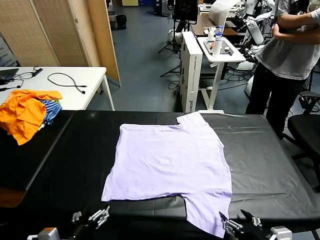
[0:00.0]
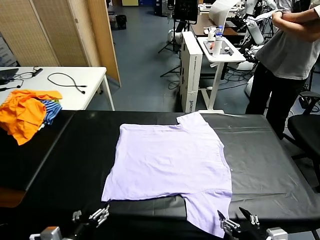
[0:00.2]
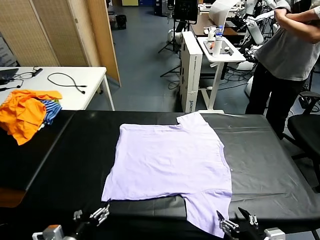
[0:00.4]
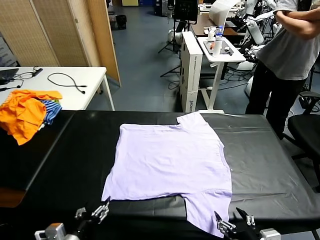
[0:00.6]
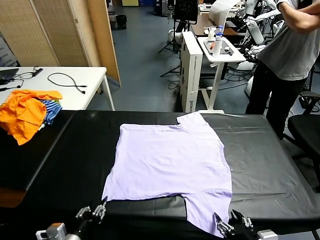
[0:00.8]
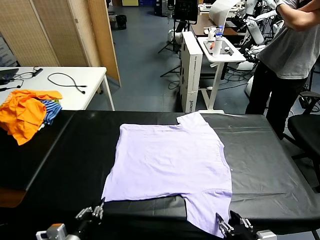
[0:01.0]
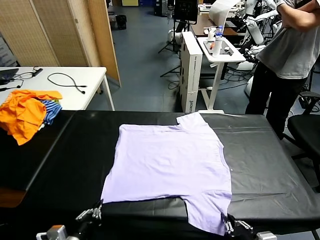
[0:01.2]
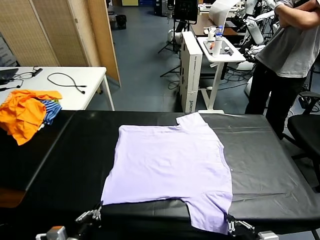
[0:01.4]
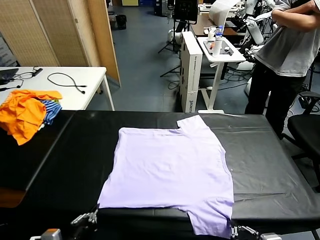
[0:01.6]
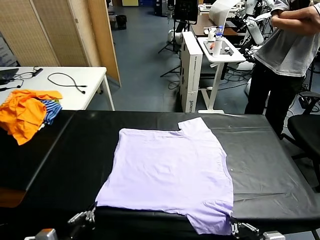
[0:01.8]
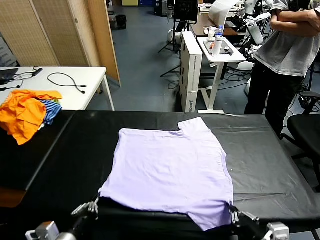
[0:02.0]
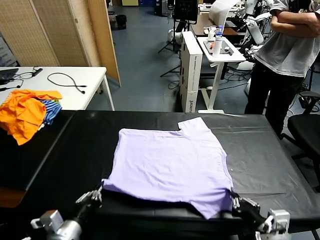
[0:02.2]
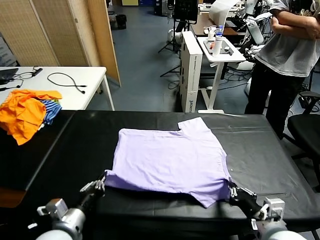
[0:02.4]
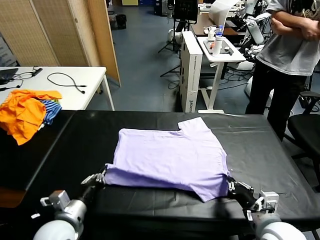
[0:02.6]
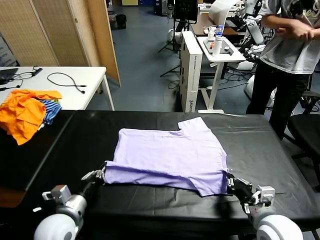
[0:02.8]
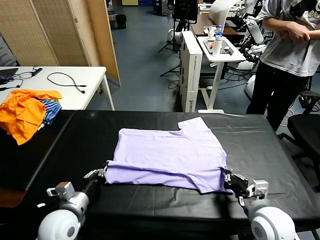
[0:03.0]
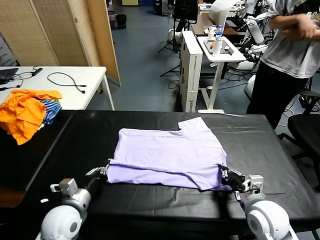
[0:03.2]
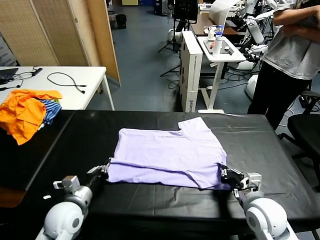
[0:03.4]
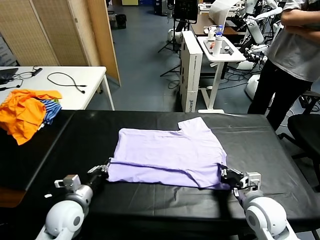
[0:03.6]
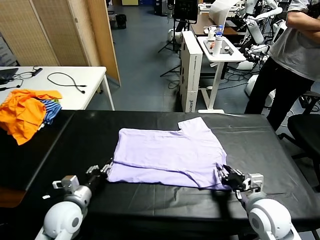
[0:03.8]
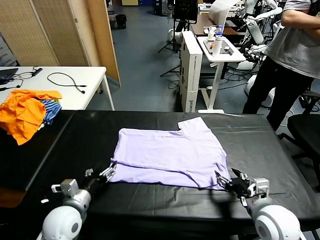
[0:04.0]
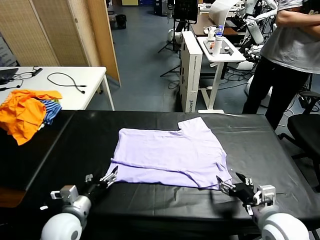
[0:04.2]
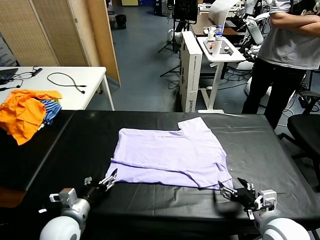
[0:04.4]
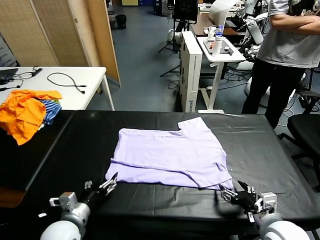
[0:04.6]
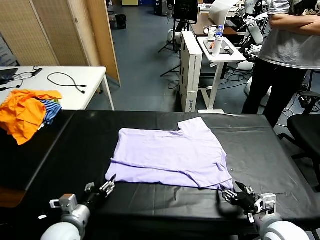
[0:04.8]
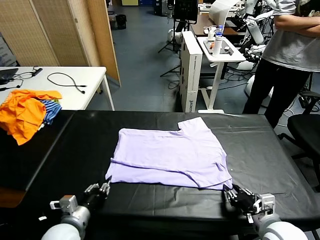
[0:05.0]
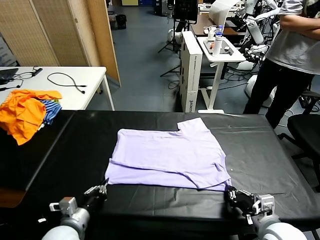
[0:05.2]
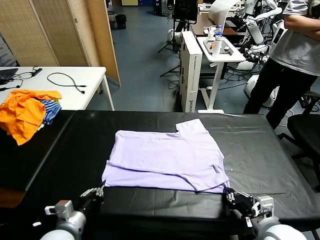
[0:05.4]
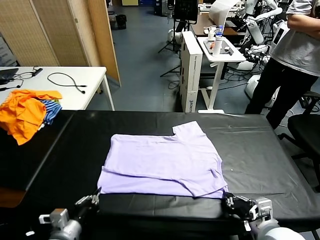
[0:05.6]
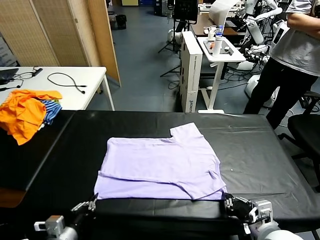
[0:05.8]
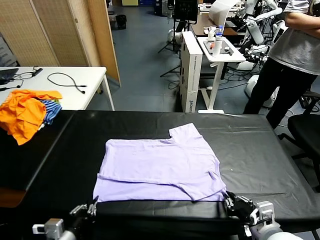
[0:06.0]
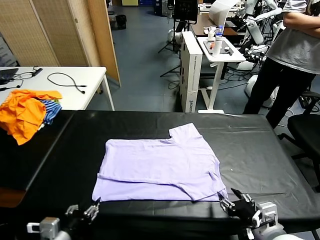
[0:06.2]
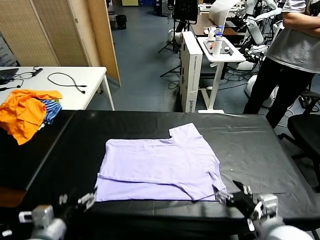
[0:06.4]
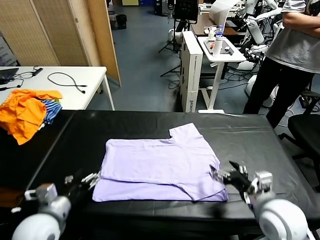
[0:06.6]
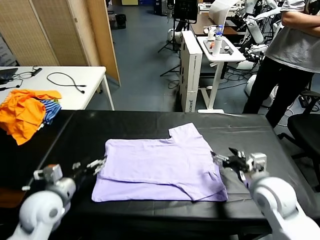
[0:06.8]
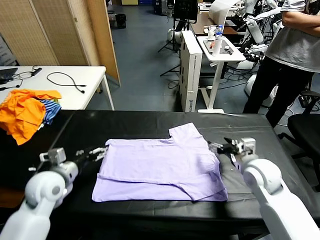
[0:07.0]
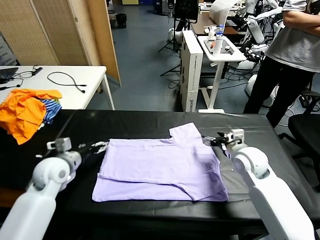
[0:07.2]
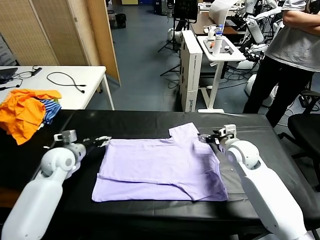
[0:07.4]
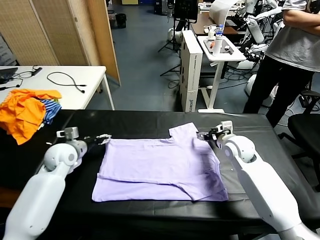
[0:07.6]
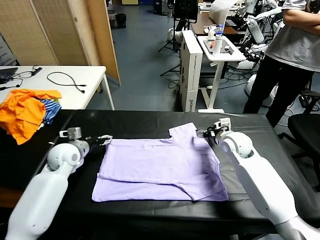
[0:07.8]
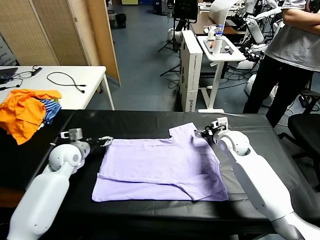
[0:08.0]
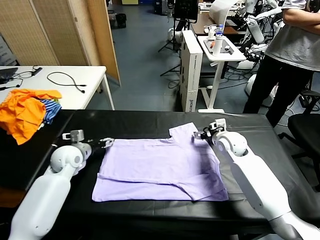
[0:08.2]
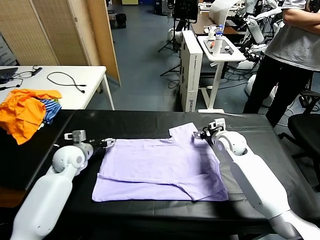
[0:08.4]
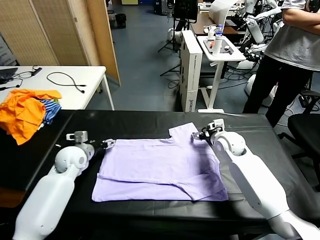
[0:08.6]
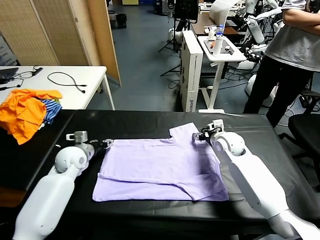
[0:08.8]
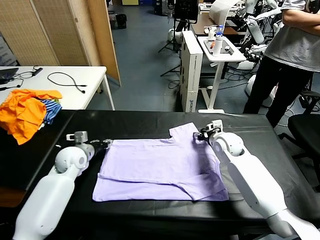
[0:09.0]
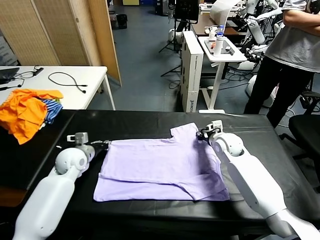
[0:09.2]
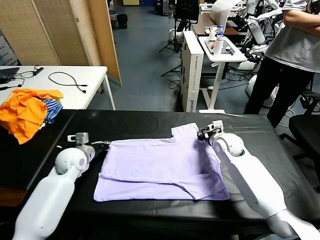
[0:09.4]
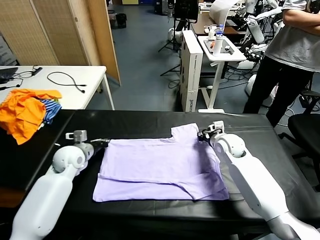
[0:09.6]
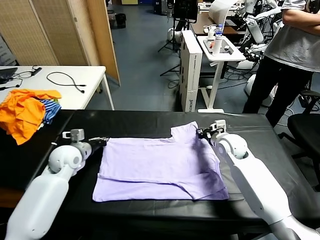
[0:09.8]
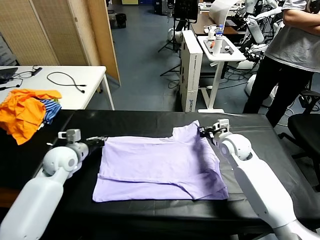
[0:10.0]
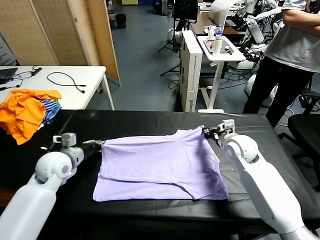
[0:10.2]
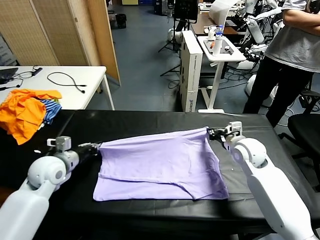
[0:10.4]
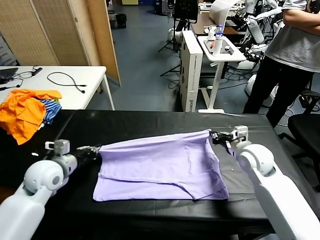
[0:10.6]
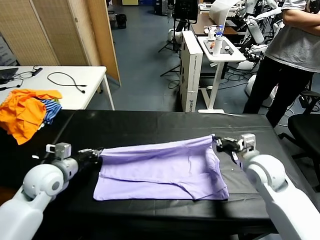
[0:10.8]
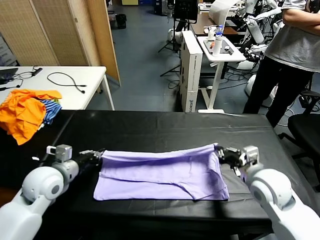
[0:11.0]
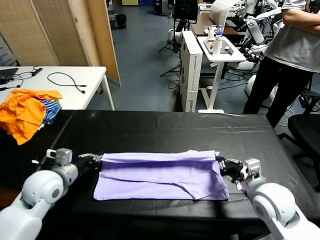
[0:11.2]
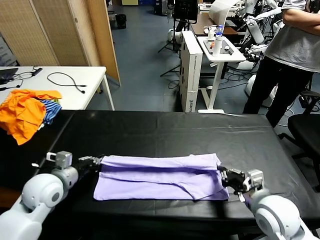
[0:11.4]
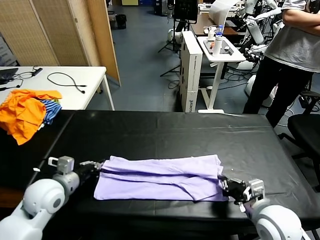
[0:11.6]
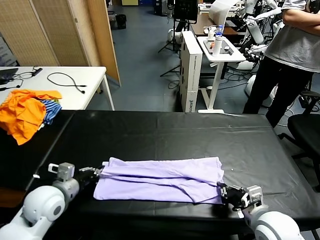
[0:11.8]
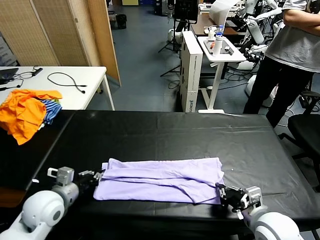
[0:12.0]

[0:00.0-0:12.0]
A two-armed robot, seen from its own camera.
Task of the whole recording: fold and organize the clothes.
Step, 0:00.0 to 0:01.4: use both grippers simultaneously to clamp the lower edge of the clothing fabric.
Step, 0:01.6 to 0:04.0: use both grippers to drag the lower edge of the fabric forward and fold it over the upper edge.
Step, 0:04.2 to 0:06.2: Drag the clothes downward with both gripper.
Step, 0:06.4 to 0:09.4: use both grippers simultaneously to clamp the upper edge of the clothing fabric.
0:01.6 to 0:03.0: Both grippers travel together forward, roughly 15 cm.
0:03.0 to 0:04.4: The left gripper opens, while the right gripper moves backward, some 5 cm, and opens.
0:04.4 to 0:06.0: The right gripper ends up about 5 cm from where it was, and closes and opens again. Meanwhile the left gripper shifts approximately 10 cm backward, and closes up.
0:06.0 to 0:07.6: The two grippers go about 30 cm forward. The left gripper opens up.
0:07.6 to 0:09.0: The right gripper closes up. Meanwhile the left gripper closes.
0:09.0 to 0:10.4: Both grippers travel together backward and upward, about 10 cm.
0:10.4 to 0:12.0: The left gripper goes some 10 cm backward, and opens its fingers. The right gripper goes roughly 20 cm backward.

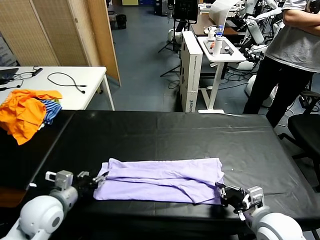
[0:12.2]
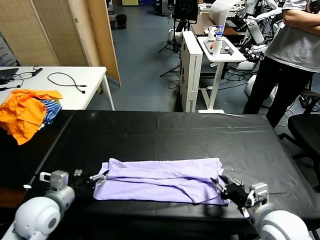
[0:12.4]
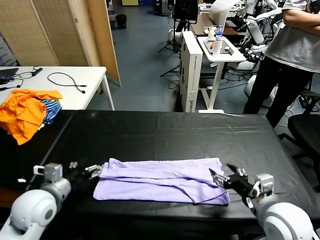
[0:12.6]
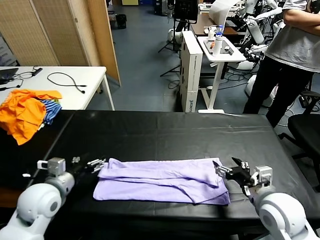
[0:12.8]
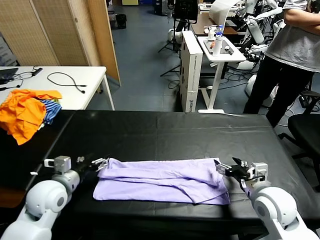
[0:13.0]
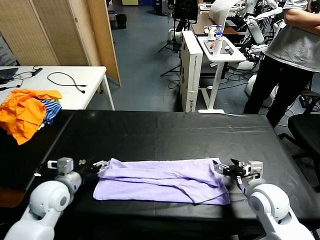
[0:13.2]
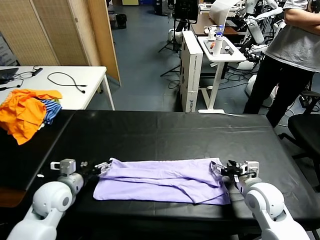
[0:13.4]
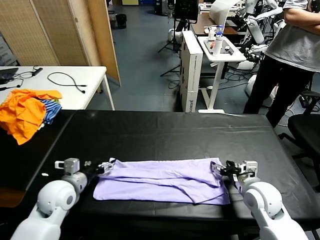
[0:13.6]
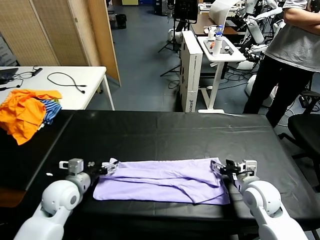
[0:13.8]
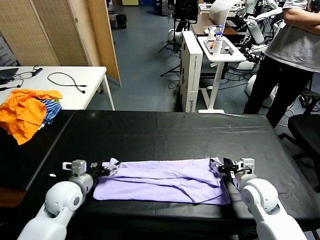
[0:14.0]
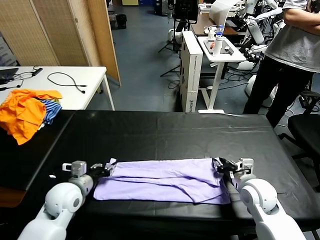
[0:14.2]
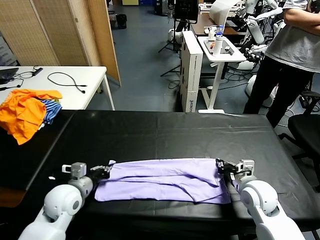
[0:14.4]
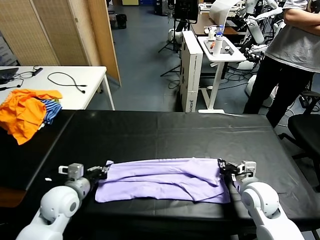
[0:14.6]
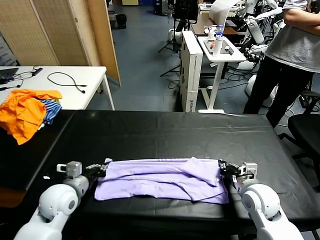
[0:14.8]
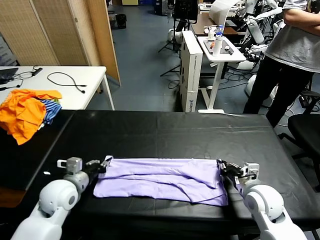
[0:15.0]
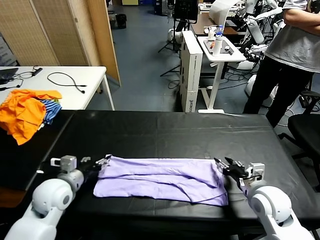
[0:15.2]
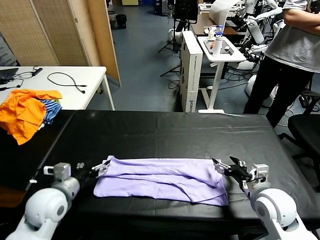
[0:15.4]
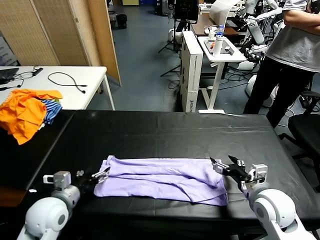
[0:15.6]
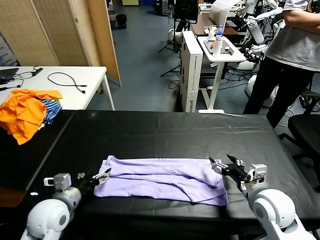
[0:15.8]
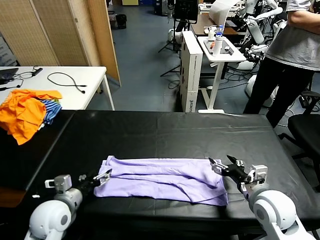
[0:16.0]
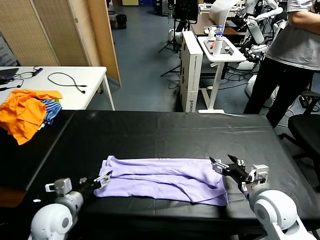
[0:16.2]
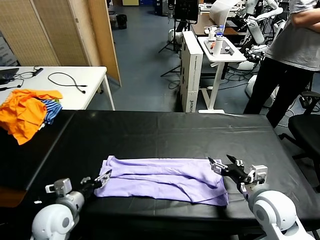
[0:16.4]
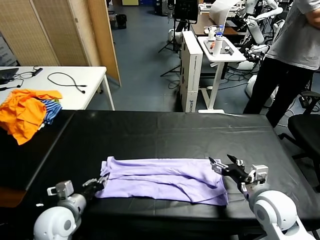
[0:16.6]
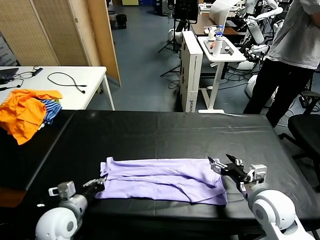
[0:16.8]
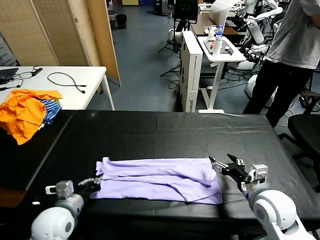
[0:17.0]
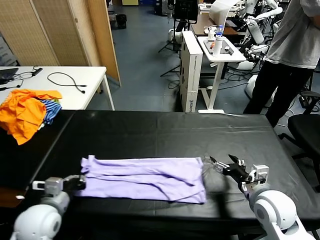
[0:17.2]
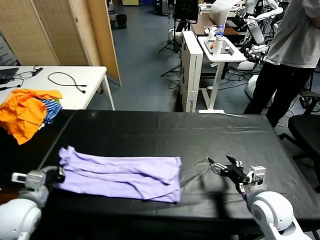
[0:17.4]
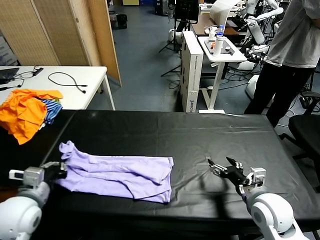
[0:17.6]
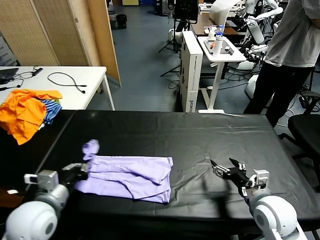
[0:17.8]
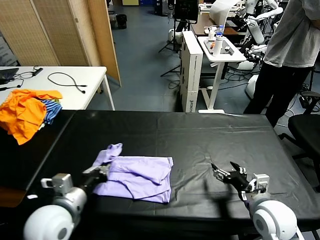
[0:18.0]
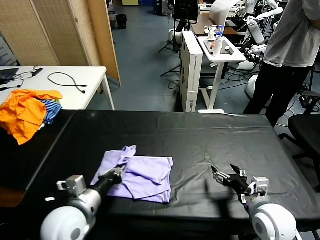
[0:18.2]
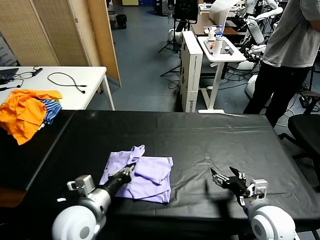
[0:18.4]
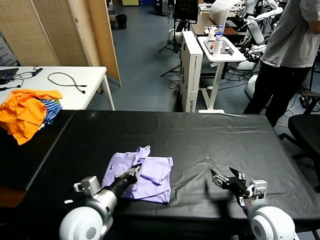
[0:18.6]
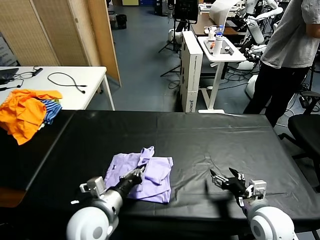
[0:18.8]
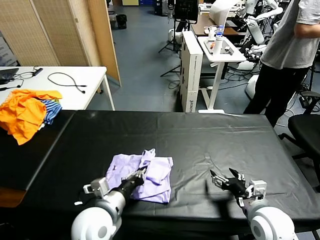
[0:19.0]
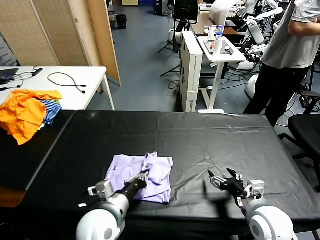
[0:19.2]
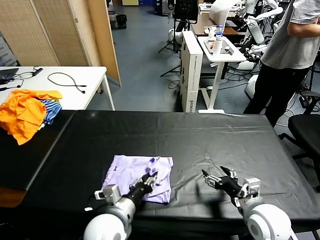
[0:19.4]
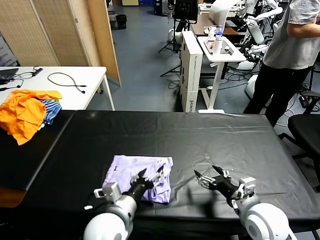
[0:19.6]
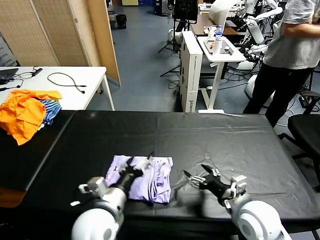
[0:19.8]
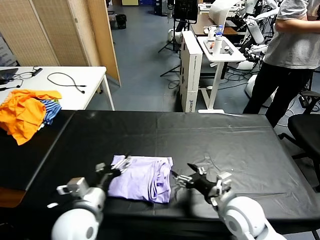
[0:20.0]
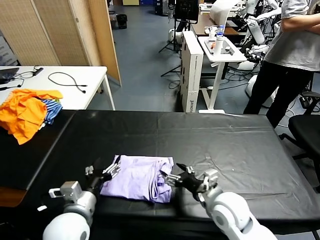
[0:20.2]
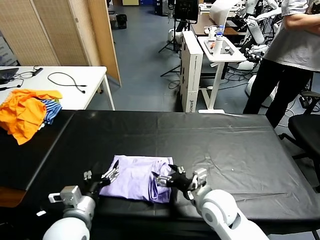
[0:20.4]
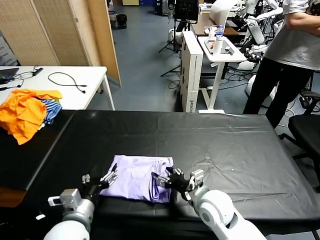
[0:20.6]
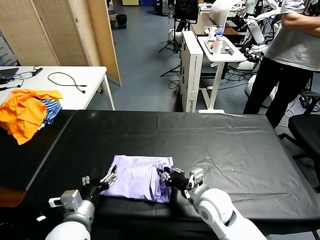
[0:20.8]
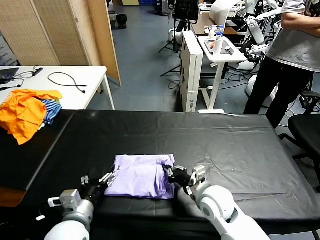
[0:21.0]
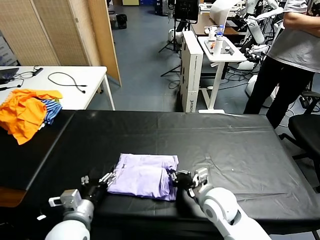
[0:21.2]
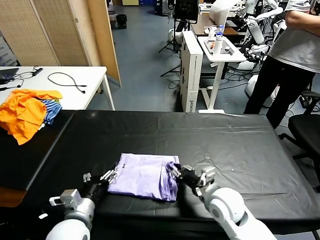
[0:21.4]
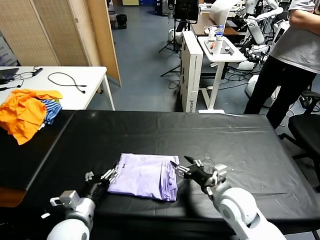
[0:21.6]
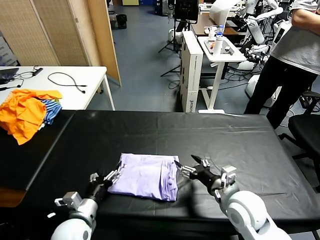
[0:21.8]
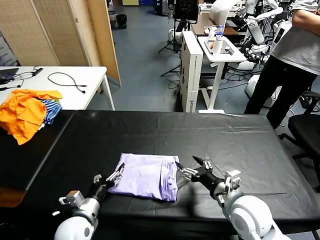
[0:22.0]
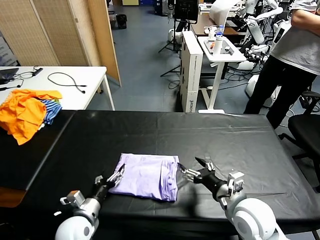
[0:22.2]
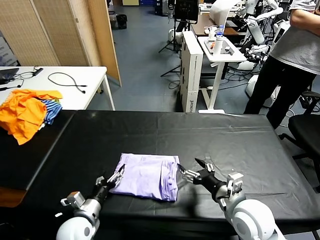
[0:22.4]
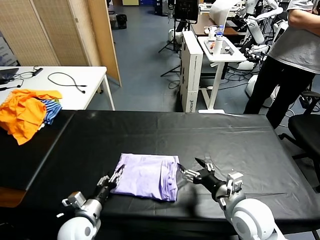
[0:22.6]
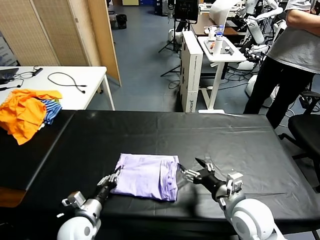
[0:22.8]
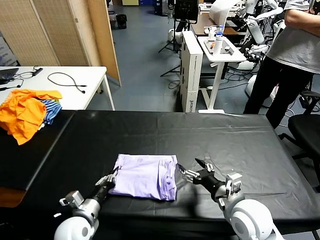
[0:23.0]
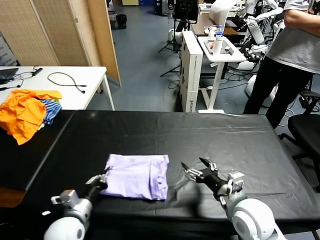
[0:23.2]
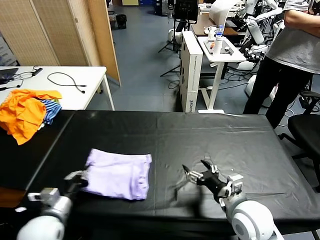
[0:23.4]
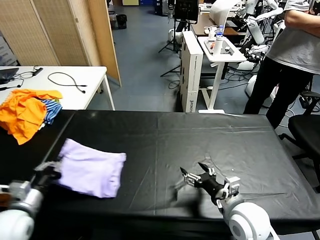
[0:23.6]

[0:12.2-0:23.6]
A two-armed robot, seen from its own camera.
Task of the whole recording: fold and organize the clothes.
Step, 0:12.2 to 0:15.4: use both grippers to drag the upper edge of the fabric backward and fold it over the lower edge.
Step, 0:15.6 to 0:16.8: use the left gripper to clamp the left edge of the fabric.
Step, 0:17.0 to 0:21.6: use the left gripper to drag the left edge of the fabric to the left and folds it over the right edge.
0:12.2 to 0:13.6: The right gripper is displaced forward and downward by about 10 cm, and opens up. The left gripper shifts approximately 5 cm forward.
0:13.6 to 0:15.0: The left gripper closes its fingers. Meanwhile the right gripper closes, then opens again.
0:15.0 to 0:16.4: The left gripper heads backward, covering some 5 cm, and opens, then closes again. Meanwhile the right gripper opens up.
0:16.4 to 0:17.8: The left gripper moves upward, some 10 cm, and closes.
0:17.8 to 0:19.4: The left gripper heads to the right, covering about 15 cm, and opens its fingers.
0:19.4 to 0:20.8: The right gripper is displaced to the left and forward by roughly 15 cm, and closes its fingers. Meanwhile the left gripper is displaced to the left by roughly 10 cm, and opens.
0:20.8 to 0:22.2: The left gripper shifts roughly 10 cm downward. Meanwhile the right gripper goes about 10 cm to the right, backward and upward, and opens its fingers.
0:22.2 to 0:23.6: The left gripper moves to the left and upward, approximately 15 cm, and closes up.
